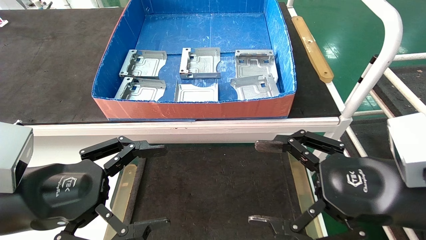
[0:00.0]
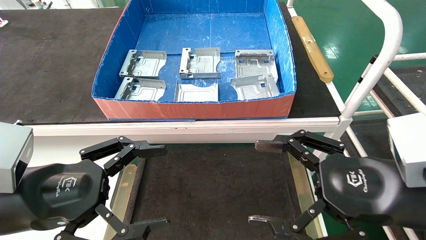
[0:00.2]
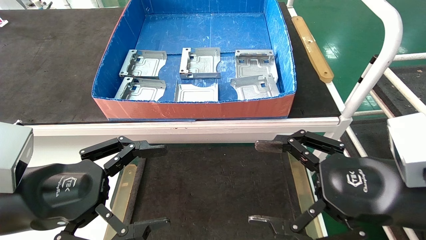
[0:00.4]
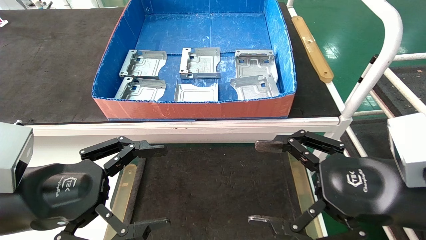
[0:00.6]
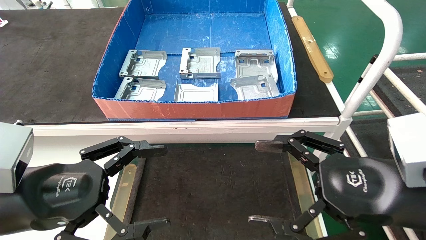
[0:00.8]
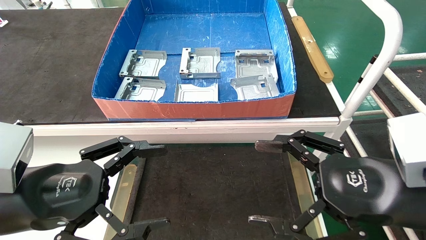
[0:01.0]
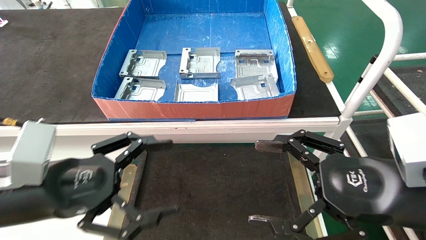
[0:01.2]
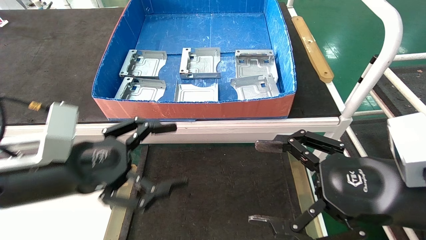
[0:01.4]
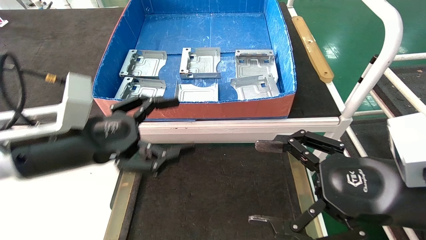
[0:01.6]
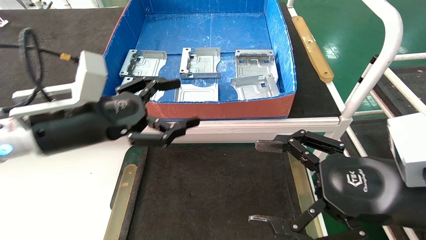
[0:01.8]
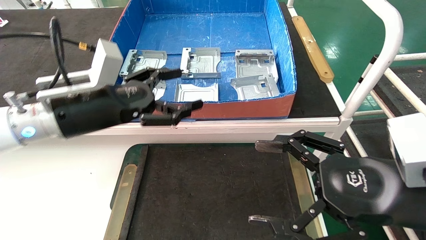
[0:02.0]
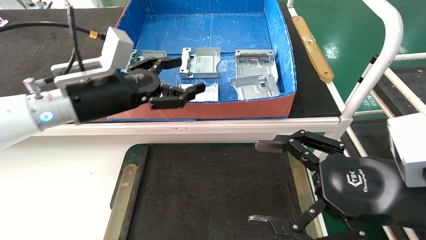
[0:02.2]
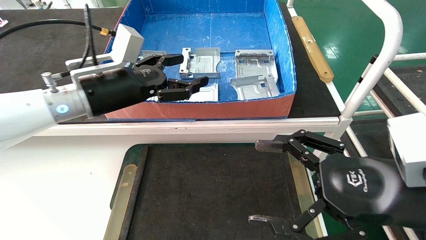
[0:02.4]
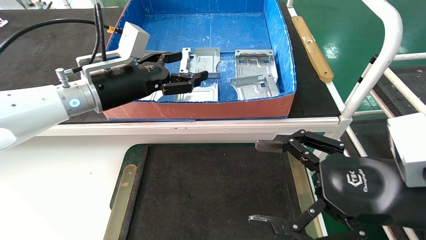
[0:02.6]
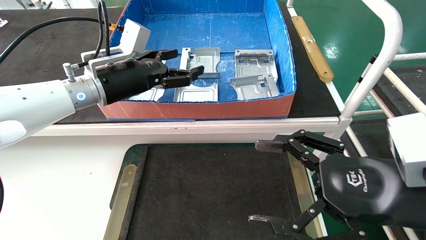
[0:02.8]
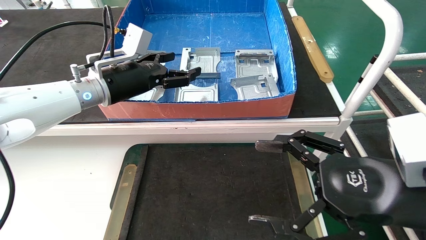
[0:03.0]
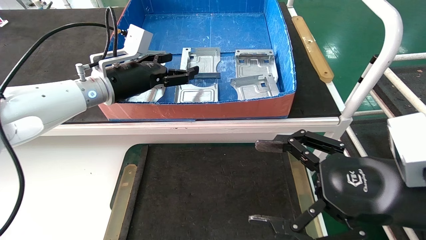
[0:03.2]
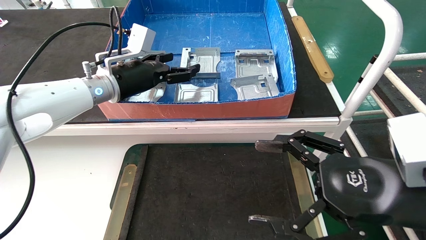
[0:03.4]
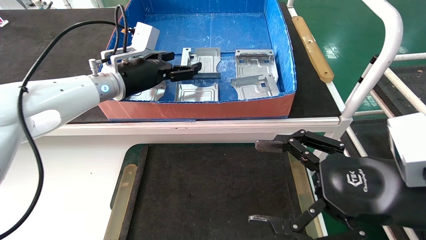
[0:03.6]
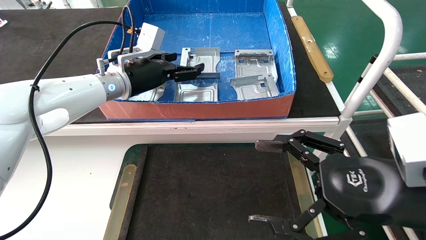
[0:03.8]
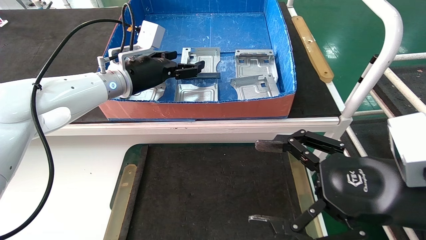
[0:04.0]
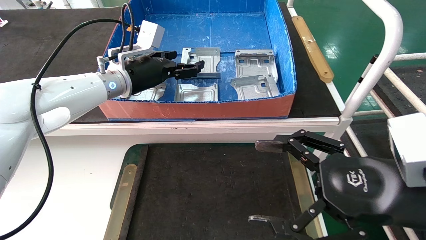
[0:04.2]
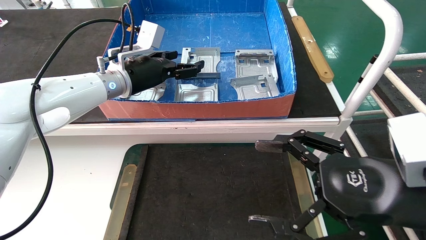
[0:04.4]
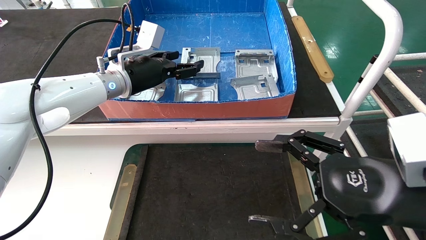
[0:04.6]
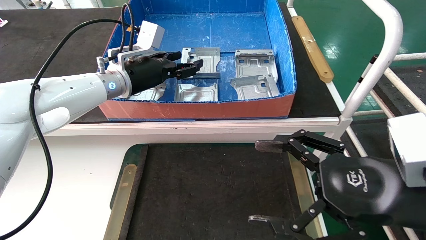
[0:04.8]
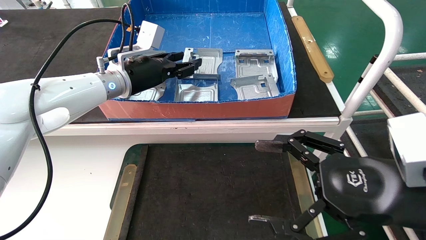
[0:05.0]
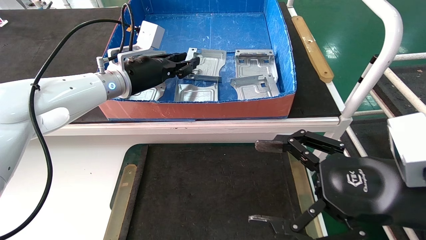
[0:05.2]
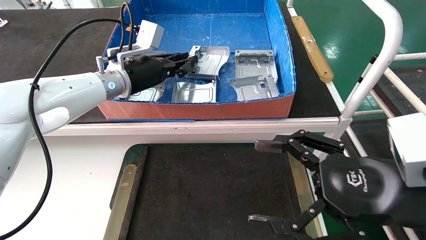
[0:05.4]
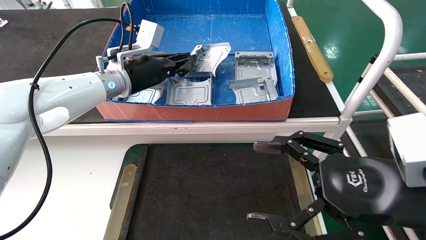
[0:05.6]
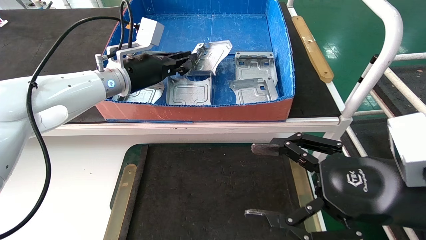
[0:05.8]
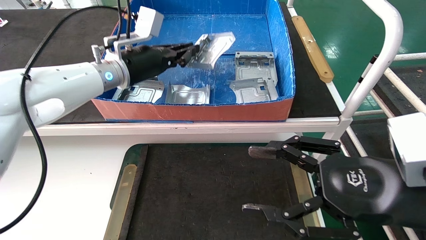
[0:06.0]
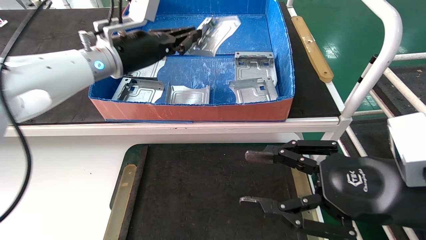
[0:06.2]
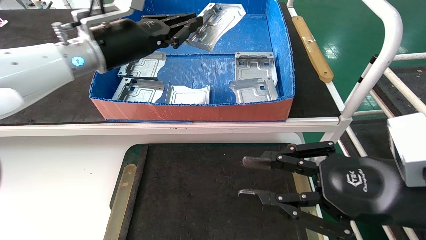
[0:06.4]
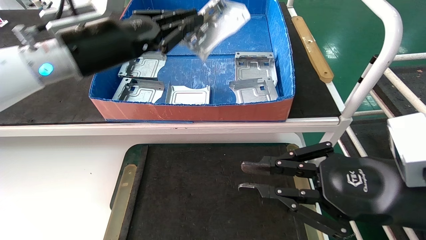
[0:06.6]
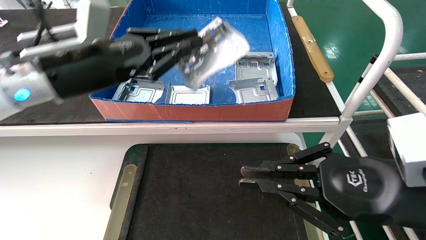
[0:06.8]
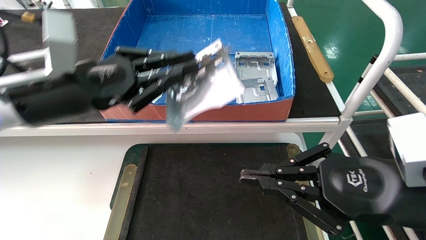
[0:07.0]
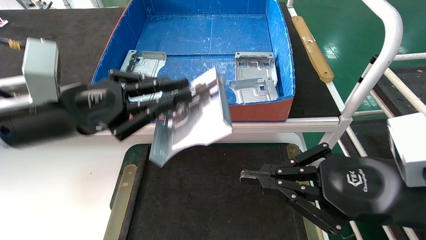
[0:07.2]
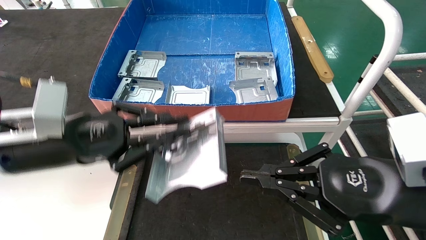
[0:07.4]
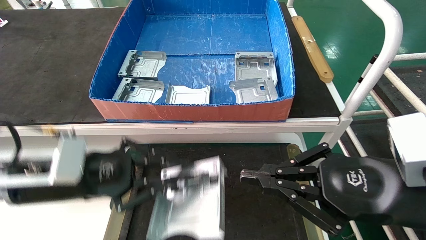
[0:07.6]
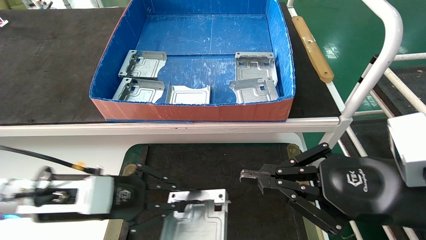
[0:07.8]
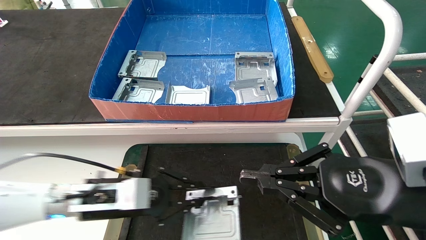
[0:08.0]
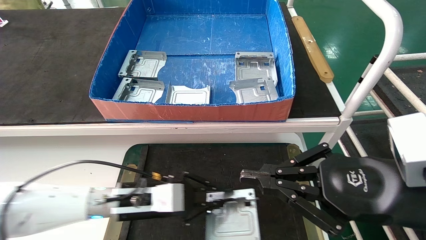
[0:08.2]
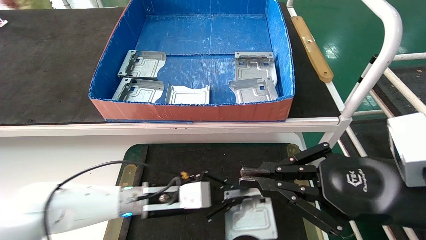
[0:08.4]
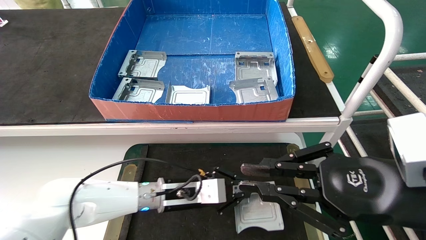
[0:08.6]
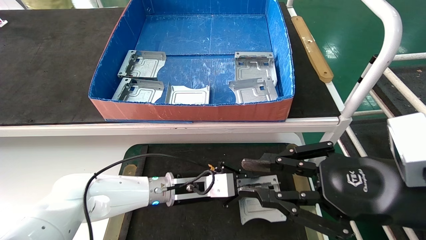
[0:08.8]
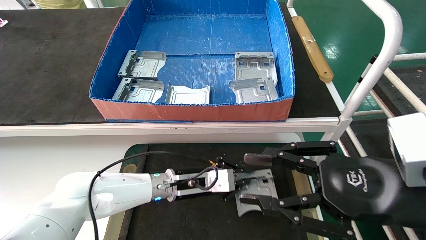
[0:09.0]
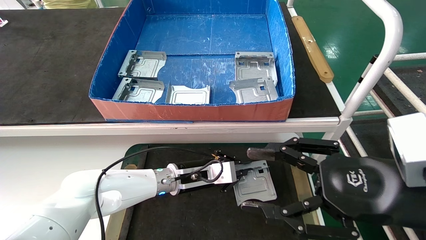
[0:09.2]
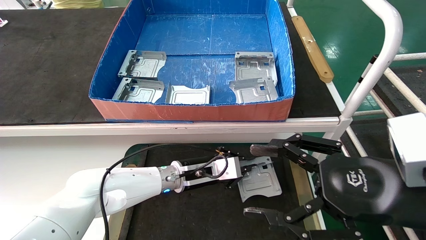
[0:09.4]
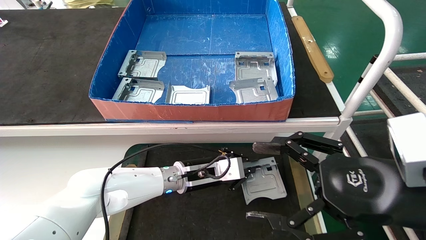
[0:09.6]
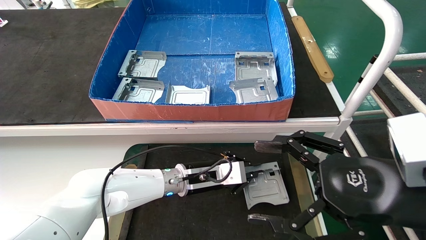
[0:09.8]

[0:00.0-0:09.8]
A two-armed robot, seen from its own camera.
Task of the whole recording: take the accessories out of the box and place them on the table.
Step, 0:01.6 to 0:05.8: Pick up the hard drive bracket from the feeding area.
0:00.0 to 0:01.4: The left gripper ends up approximately 5 cm from where it was.
0:01.4 to 0:02.8: The left gripper heads forward and upward, covering about 20 cm.
0:02.8 to 0:04.2: The left gripper heads forward, covering about 5 cm.
0:04.2 to 0:05.6: The left gripper closes.
0:05.6 to 0:07.0: The right gripper closes its fingers. Meanwhile the left gripper is displaced backward by roughly 15 cm.
0:07.0 to 0:08.4: The left gripper goes roughly 25 cm downward and to the right.
0:08.4 to 0:09.8: The left gripper moves to the right, about 5 cm, while the right gripper opens.

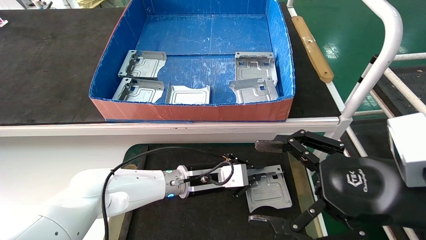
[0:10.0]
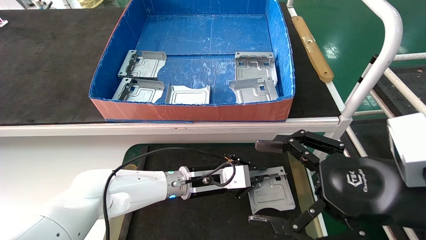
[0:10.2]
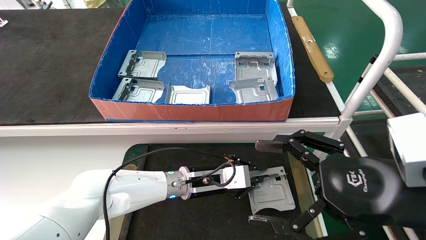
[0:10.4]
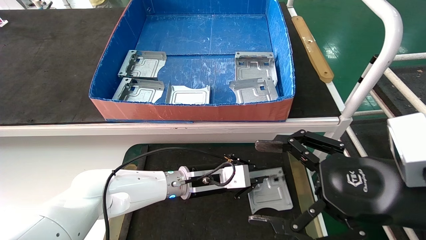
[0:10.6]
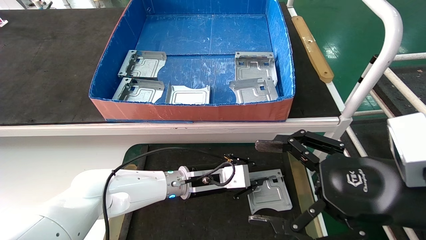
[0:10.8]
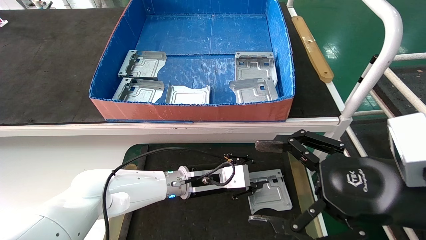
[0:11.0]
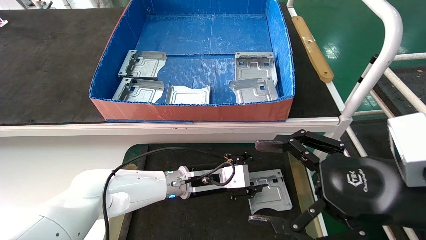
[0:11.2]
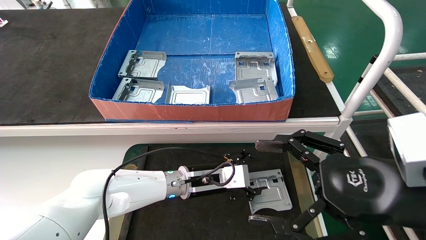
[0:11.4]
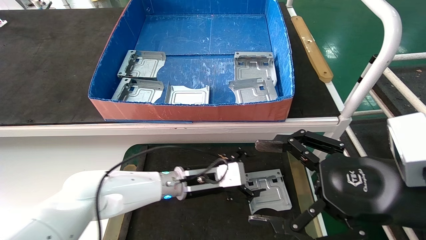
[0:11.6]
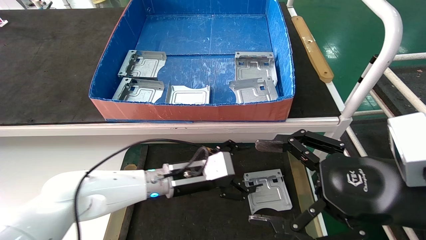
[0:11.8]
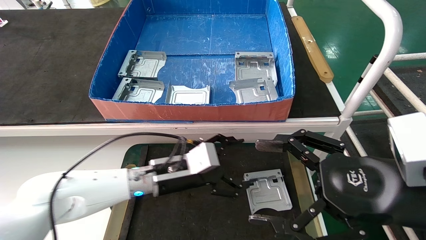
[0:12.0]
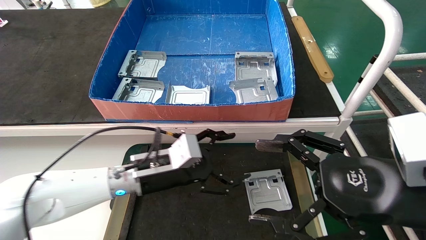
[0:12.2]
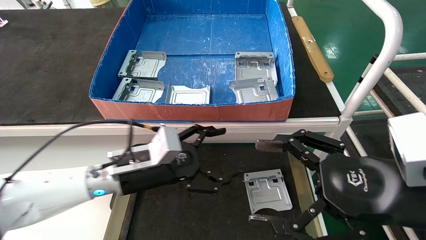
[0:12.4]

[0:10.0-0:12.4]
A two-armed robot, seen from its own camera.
Task of the whole recording: take the accessories out of the box and place them on the table.
0:10.0 to 0:11.2: The left gripper opens its fingers.
0:11.2 to 0:12.4: The left gripper moves to the left, backward and upward, about 15 cm, and opens its fingers.
